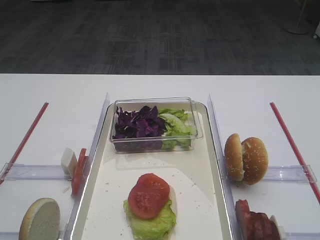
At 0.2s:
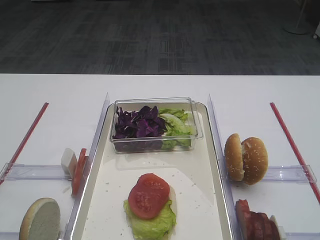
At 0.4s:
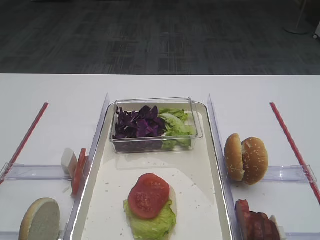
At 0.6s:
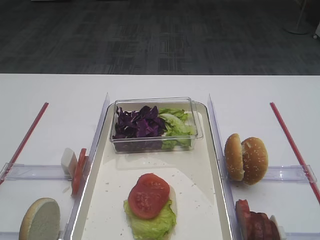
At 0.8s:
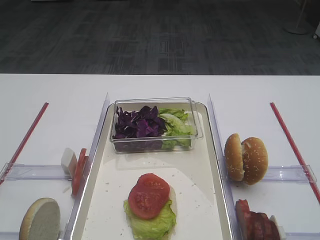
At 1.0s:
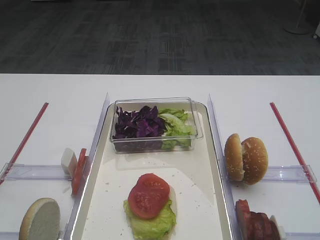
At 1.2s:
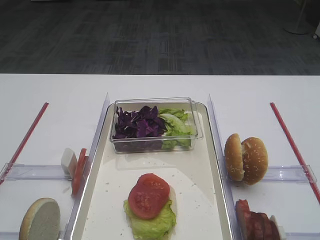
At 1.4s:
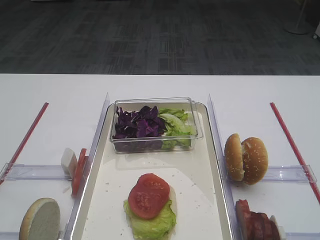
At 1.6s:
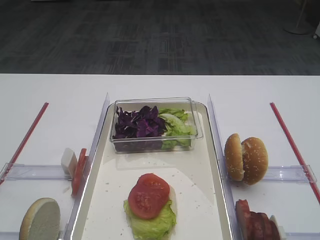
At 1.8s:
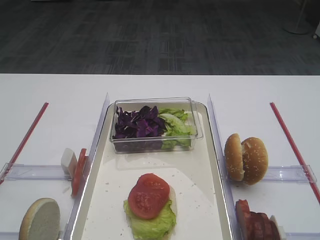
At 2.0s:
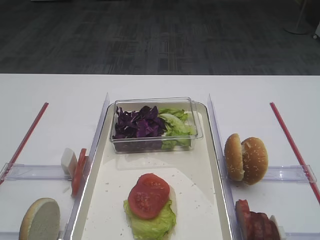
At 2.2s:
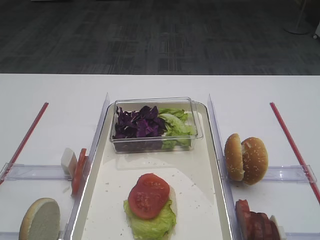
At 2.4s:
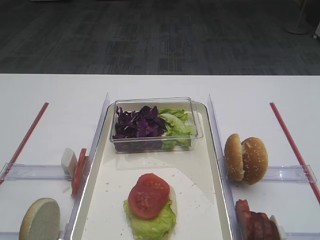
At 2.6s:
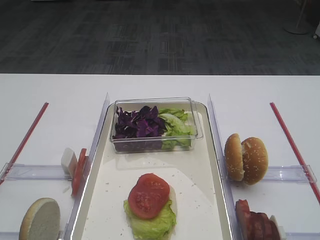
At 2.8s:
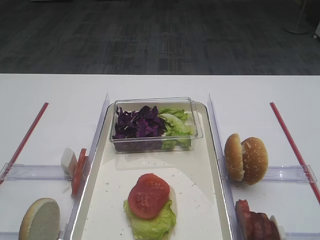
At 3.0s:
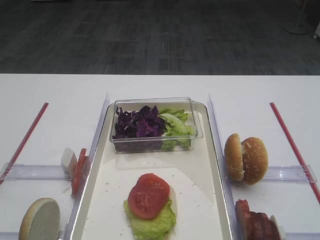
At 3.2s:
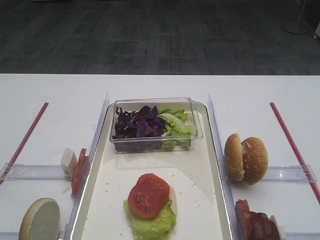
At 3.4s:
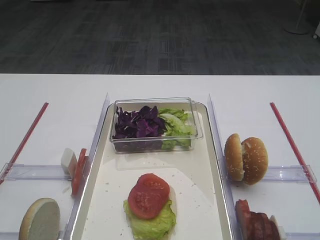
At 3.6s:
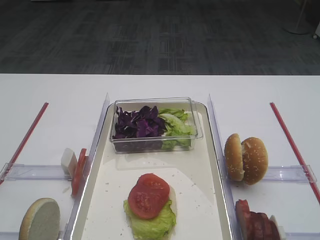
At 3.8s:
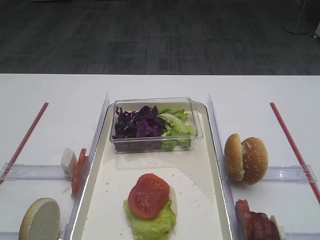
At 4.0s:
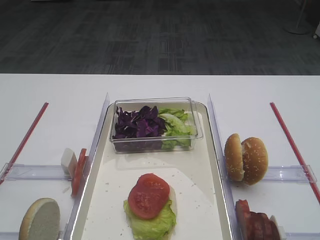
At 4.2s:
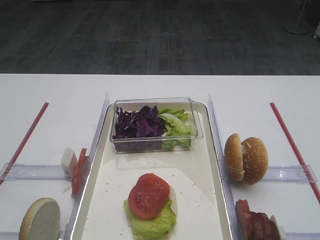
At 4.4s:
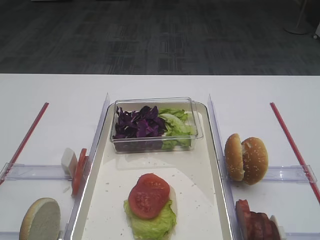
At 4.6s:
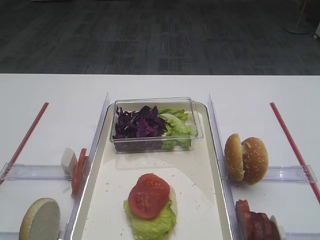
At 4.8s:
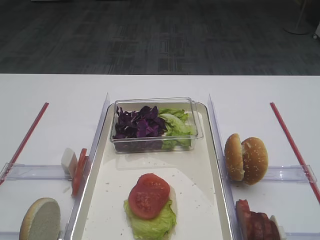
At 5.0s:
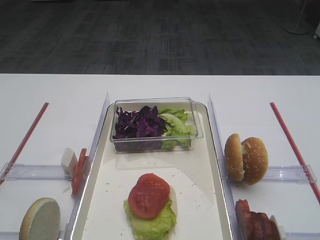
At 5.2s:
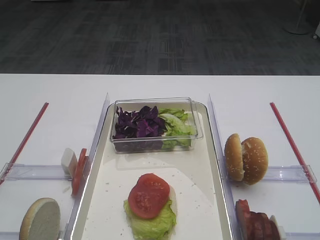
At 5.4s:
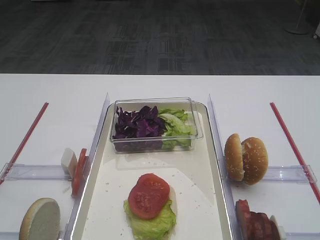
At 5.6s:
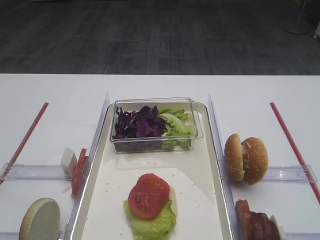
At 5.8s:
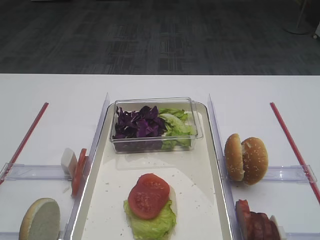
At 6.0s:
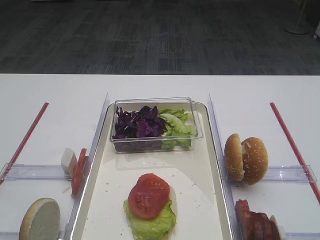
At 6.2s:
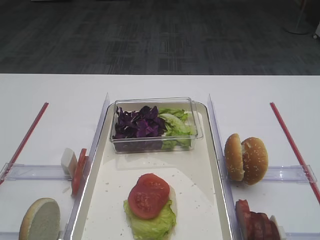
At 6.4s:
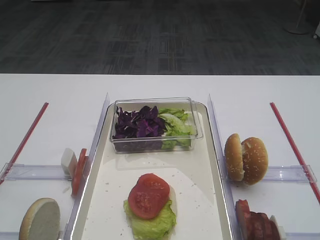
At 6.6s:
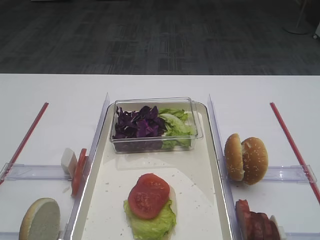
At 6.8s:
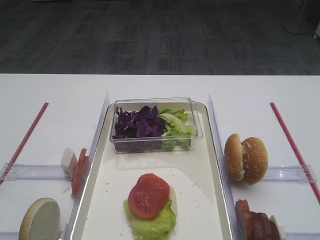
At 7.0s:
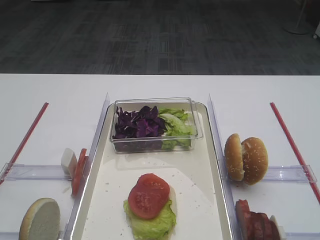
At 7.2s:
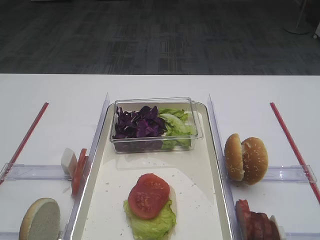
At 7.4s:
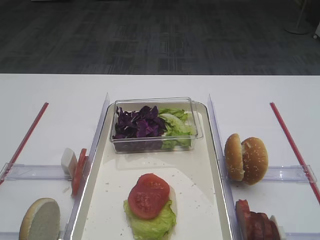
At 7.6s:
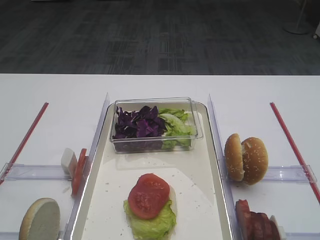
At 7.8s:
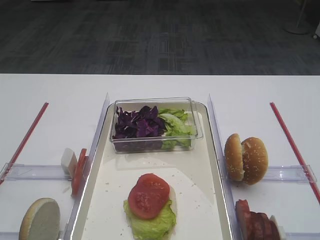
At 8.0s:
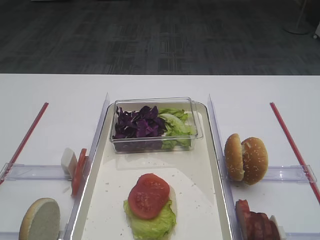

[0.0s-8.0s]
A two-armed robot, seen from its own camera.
1.6s to 3.2s: Both grippers stay about where they are.
4.8s to 8.0s: Both grippers stay put.

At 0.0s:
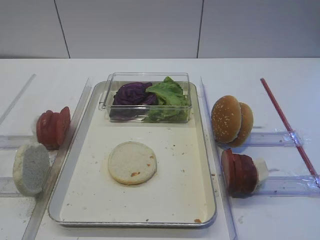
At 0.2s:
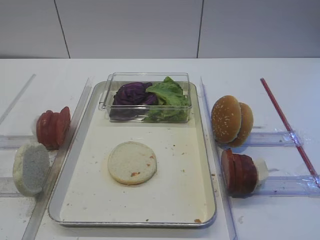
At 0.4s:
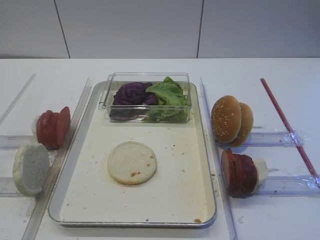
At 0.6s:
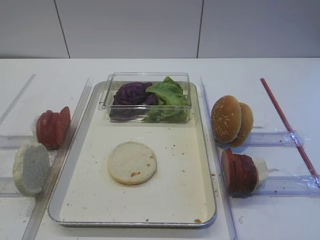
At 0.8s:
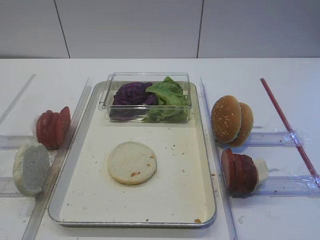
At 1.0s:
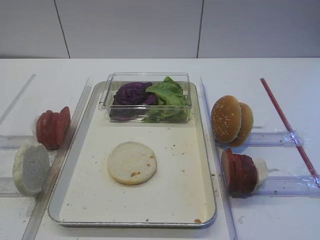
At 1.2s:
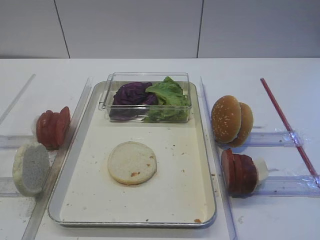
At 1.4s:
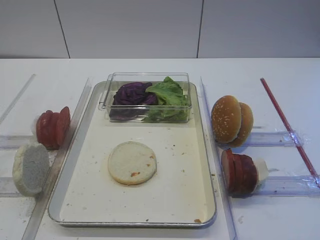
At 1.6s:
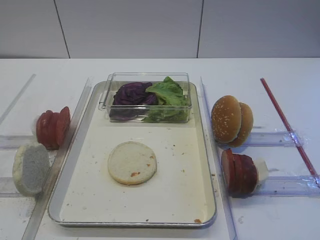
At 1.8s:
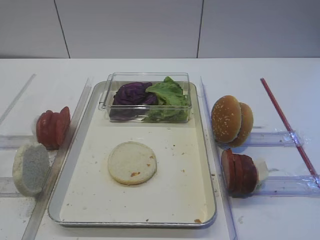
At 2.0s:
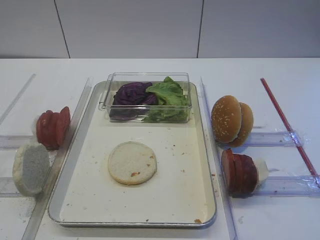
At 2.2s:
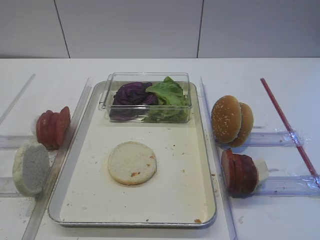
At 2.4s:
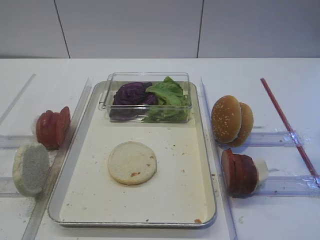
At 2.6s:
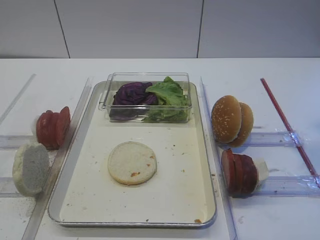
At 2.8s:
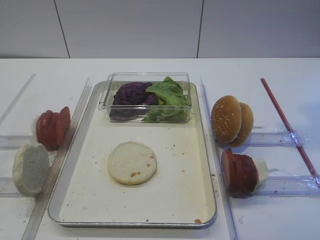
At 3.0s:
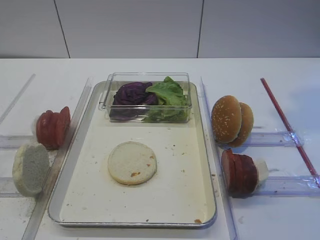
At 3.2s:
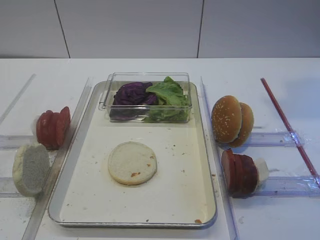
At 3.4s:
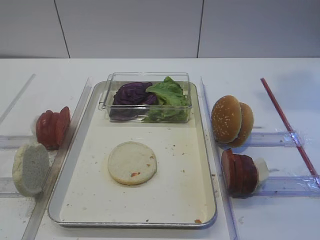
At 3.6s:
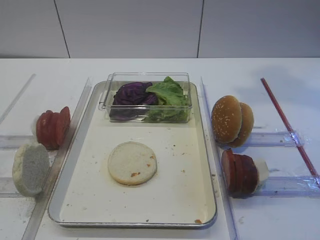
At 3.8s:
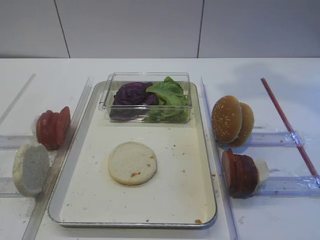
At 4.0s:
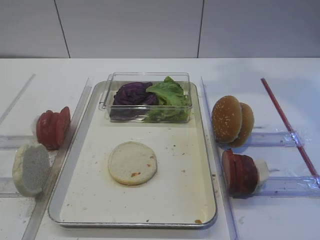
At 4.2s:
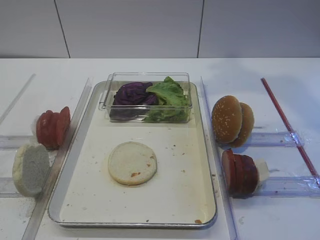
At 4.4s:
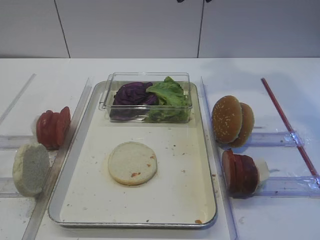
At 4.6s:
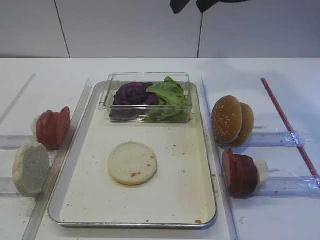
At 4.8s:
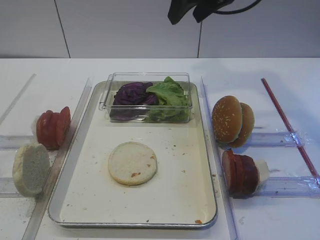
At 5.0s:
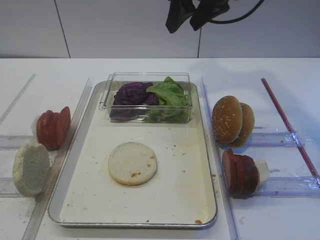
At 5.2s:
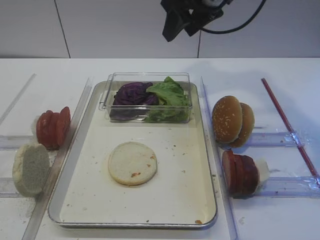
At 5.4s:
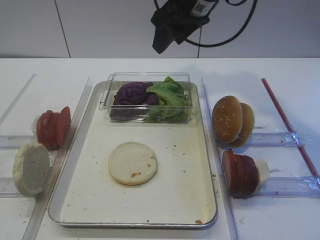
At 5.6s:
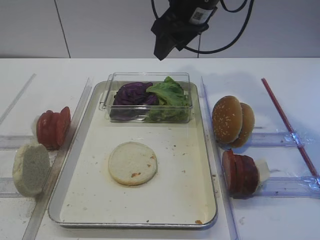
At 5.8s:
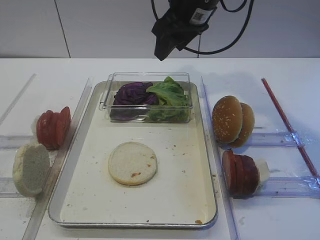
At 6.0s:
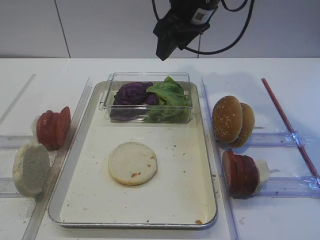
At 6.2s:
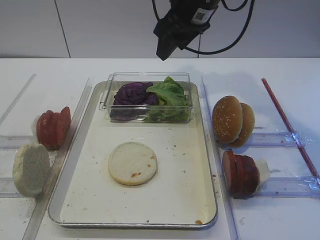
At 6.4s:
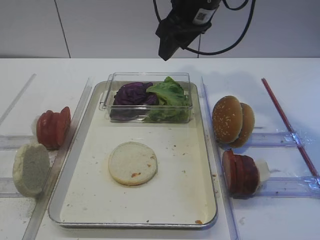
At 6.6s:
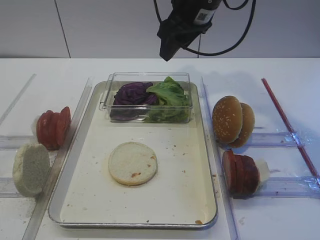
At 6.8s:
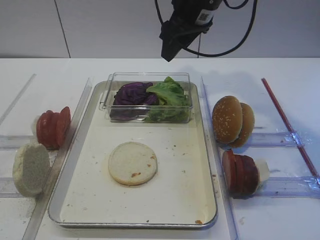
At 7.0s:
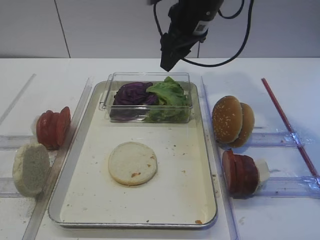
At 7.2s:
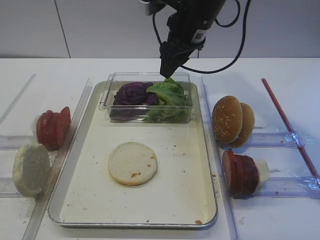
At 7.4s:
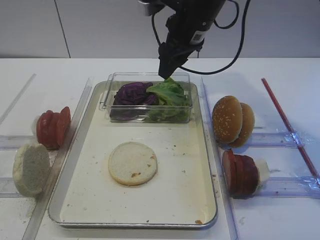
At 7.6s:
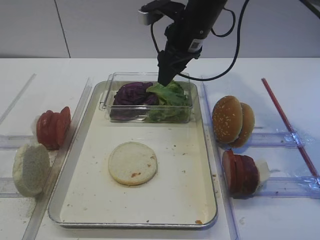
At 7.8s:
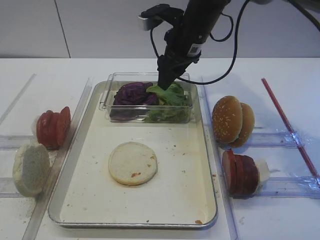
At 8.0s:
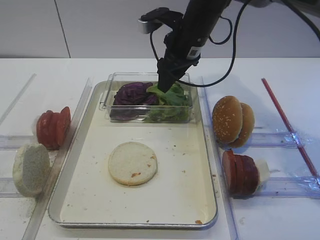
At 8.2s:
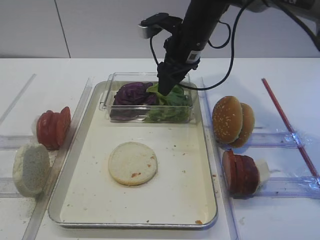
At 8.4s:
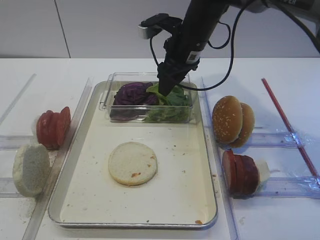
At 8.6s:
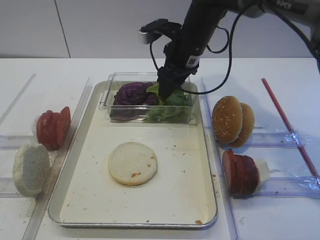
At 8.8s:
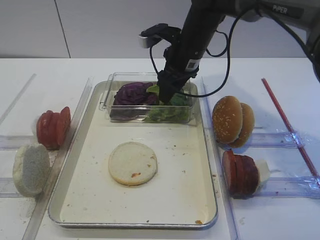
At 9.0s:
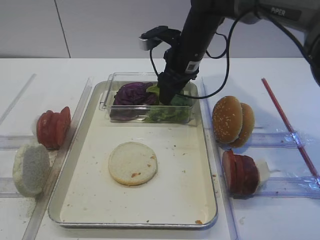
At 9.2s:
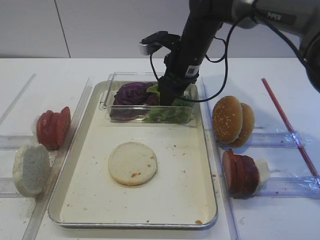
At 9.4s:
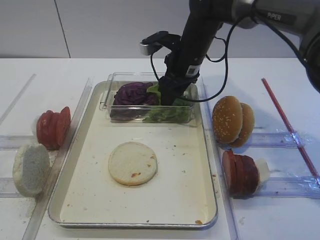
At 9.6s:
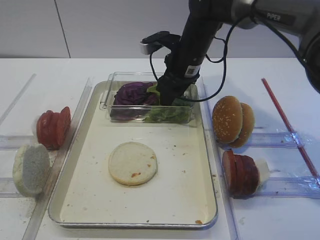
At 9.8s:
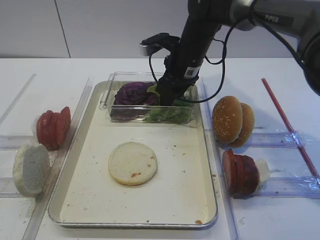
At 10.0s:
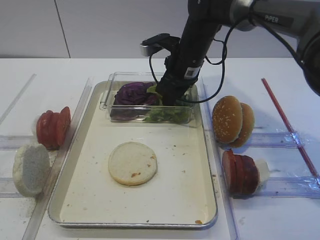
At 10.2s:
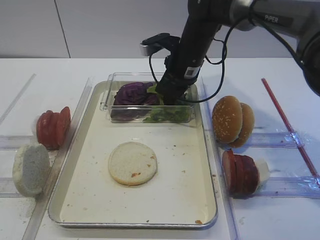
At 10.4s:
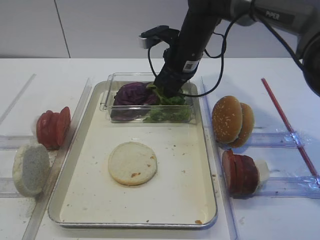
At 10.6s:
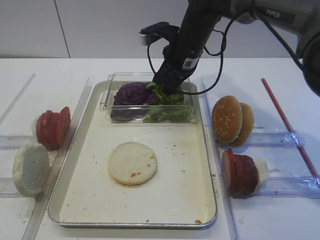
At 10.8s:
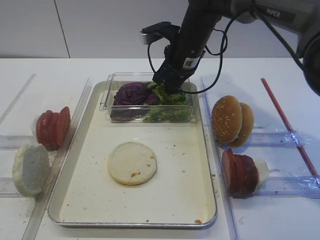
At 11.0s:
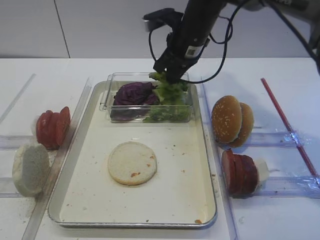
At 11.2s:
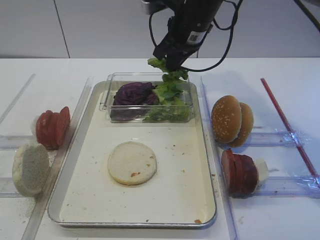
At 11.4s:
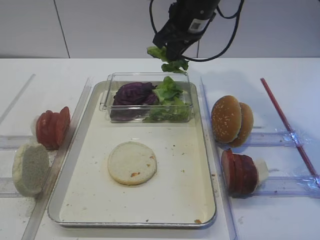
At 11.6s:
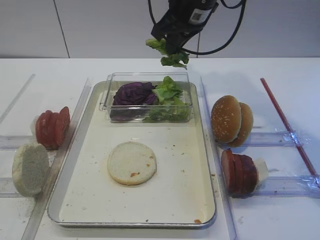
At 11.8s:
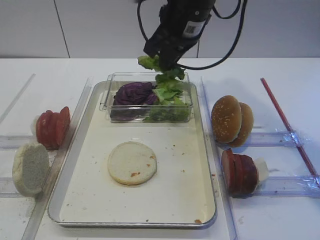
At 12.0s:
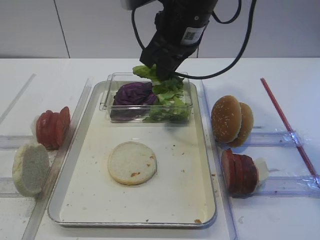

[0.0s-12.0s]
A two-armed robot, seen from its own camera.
Step, 0.0s to 11.2s: Pick up the lettuce leaf with the right gripper.
3.0s to 4.4s: The right gripper shifts some 20 cm forward and to the left.
4.4s to 6.0s: The right gripper travels downward by roughly 10 cm.
6.0s to 7.6s: The right gripper moves downward, roughly 5 cm.
7.6s to 9.0s: The right gripper moves downward, roughly 5 cm.
9.0s to 10.4s: The right gripper closes up.
10.4s to 12.0s: The right gripper shifts about 15 cm upward and backward.

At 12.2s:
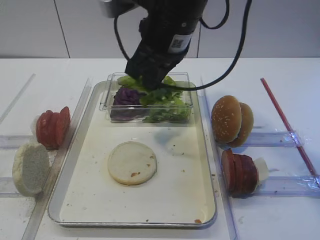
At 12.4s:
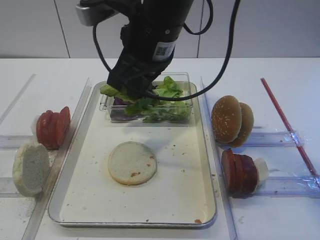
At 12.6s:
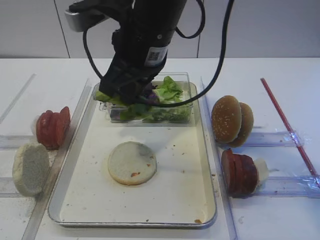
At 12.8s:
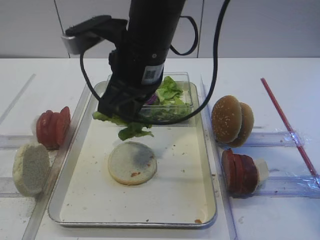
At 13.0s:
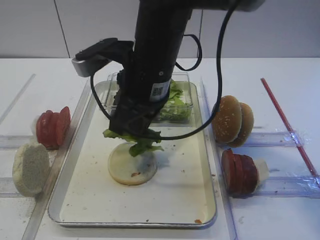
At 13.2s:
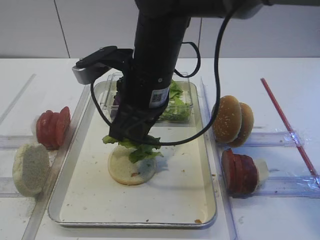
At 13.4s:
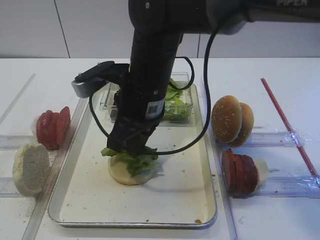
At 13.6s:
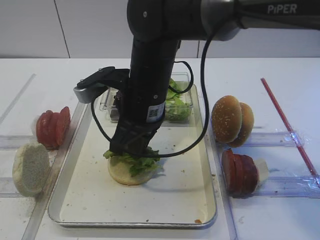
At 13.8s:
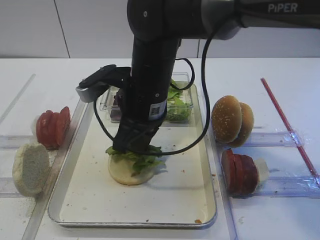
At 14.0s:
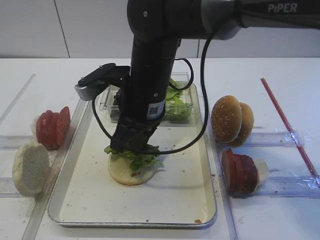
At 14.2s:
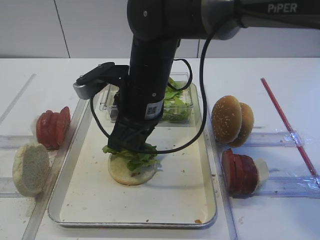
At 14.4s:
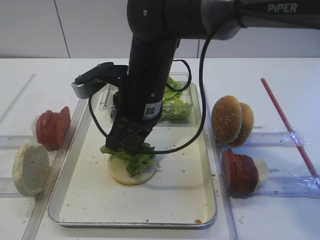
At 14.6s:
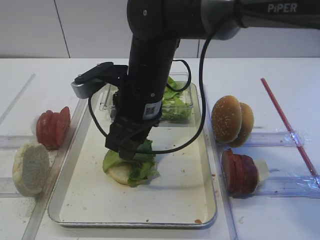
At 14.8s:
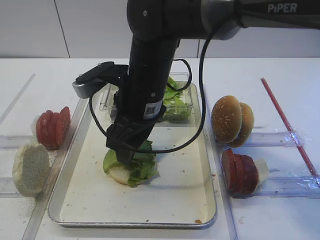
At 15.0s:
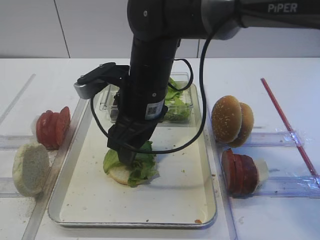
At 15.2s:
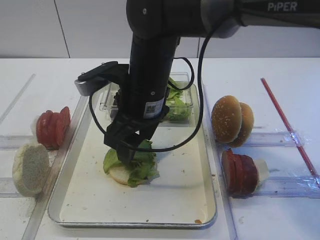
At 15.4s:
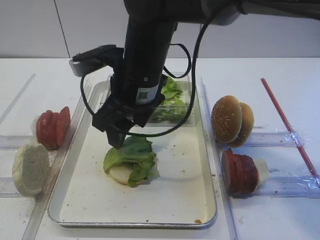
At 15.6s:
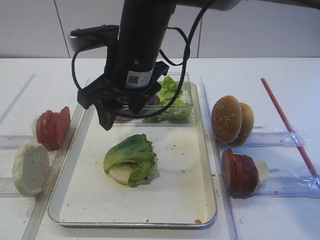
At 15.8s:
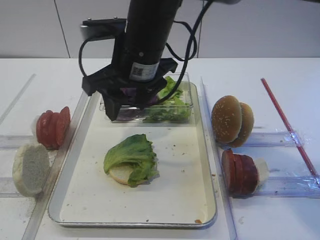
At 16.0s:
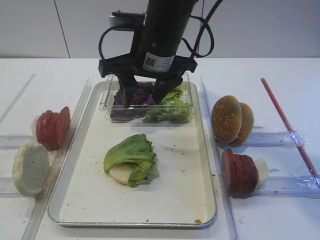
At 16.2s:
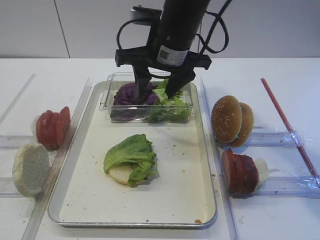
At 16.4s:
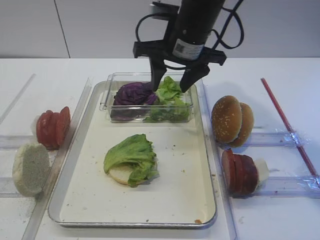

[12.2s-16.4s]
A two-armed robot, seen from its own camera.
Step, 12.2s to 14.8s: Place the lettuce leaf on the bread slice with the right gripper.
12.2s to 13.6s: The right gripper goes roughly 10 cm downward and to the left.
13.6s to 15.0s: The right gripper opens its fingers.
15.0s to 16.4s: The right gripper goes roughly 10 cm forward, to the right and upward.
